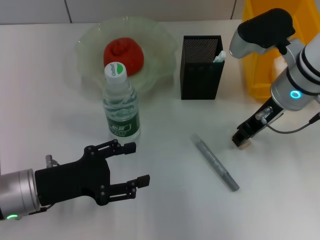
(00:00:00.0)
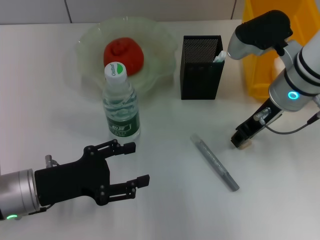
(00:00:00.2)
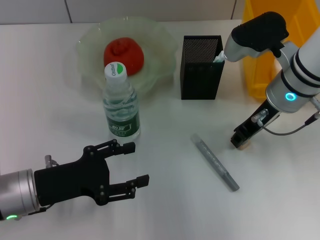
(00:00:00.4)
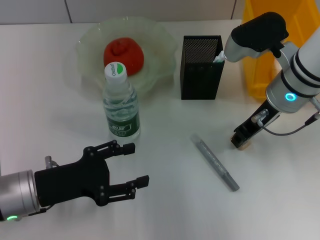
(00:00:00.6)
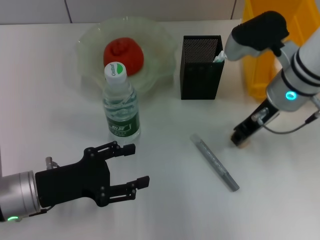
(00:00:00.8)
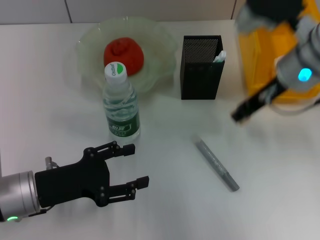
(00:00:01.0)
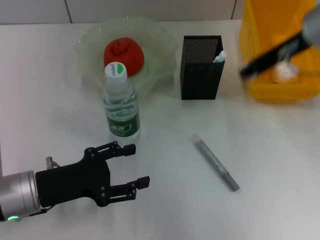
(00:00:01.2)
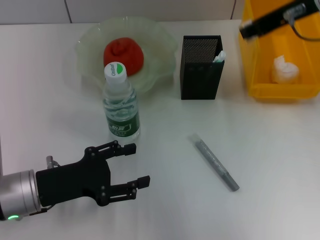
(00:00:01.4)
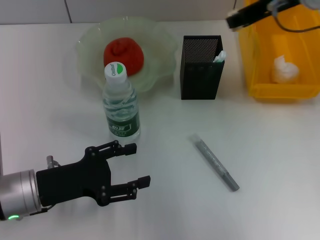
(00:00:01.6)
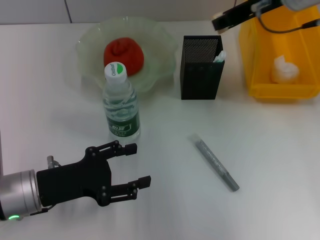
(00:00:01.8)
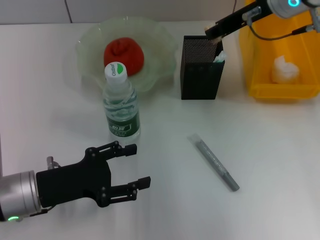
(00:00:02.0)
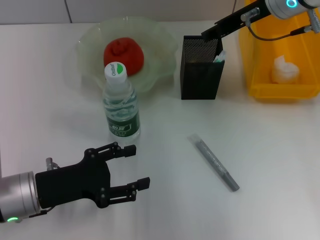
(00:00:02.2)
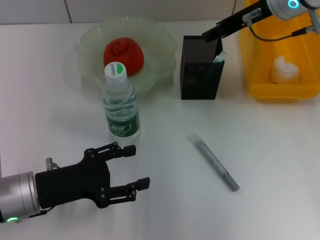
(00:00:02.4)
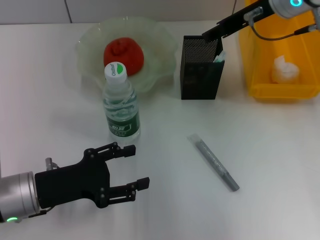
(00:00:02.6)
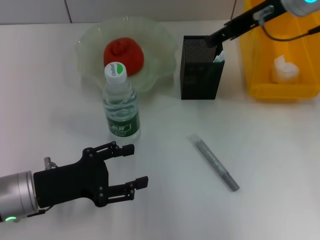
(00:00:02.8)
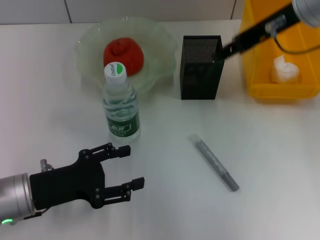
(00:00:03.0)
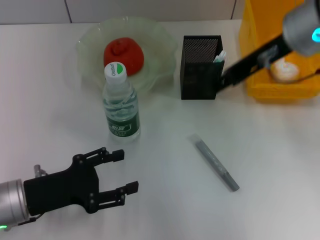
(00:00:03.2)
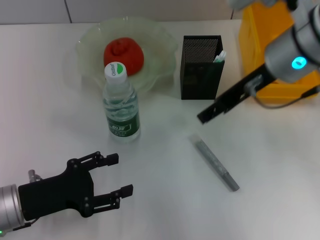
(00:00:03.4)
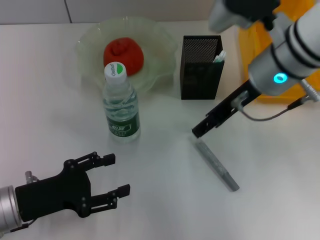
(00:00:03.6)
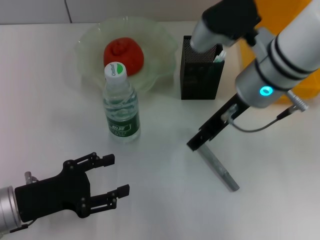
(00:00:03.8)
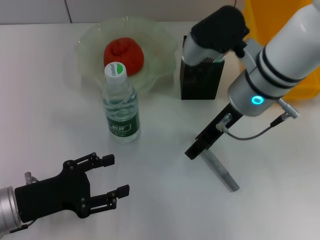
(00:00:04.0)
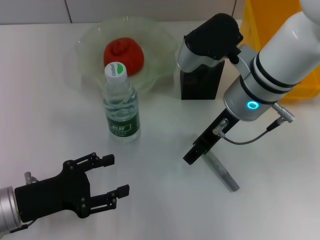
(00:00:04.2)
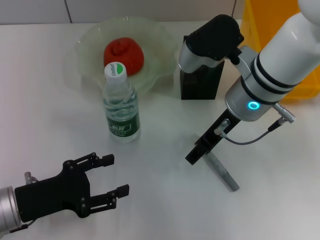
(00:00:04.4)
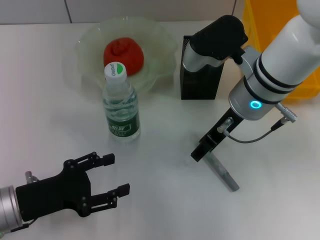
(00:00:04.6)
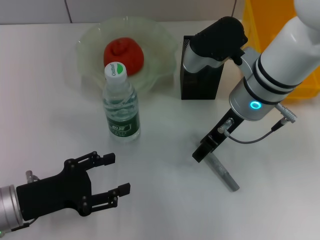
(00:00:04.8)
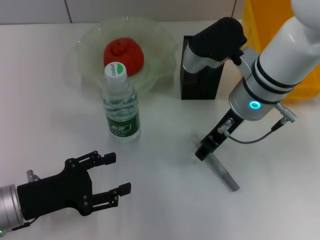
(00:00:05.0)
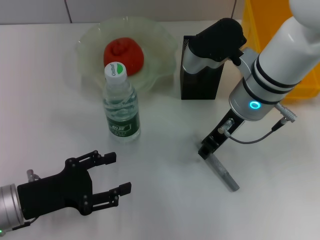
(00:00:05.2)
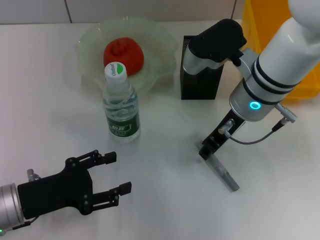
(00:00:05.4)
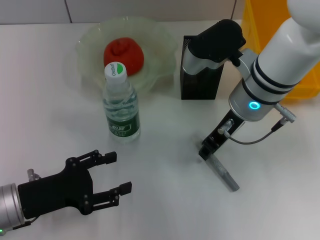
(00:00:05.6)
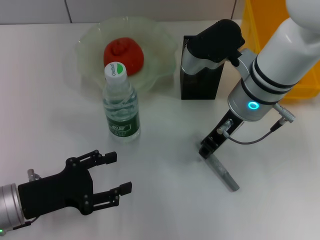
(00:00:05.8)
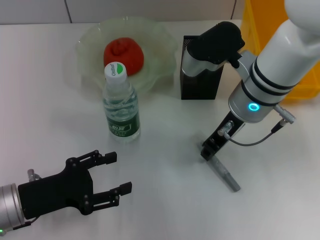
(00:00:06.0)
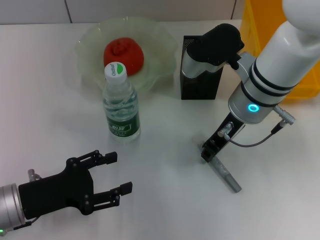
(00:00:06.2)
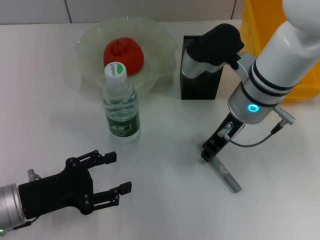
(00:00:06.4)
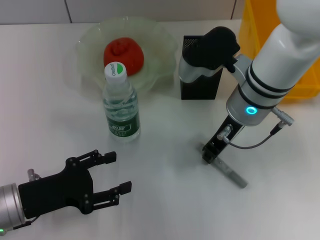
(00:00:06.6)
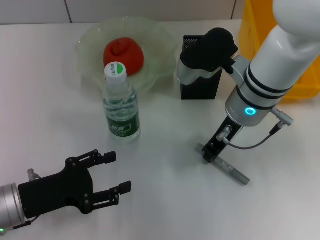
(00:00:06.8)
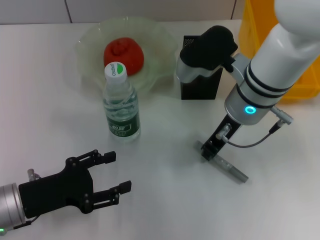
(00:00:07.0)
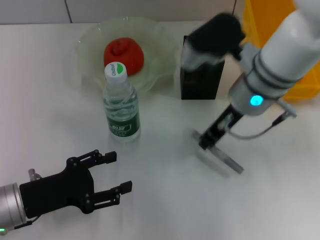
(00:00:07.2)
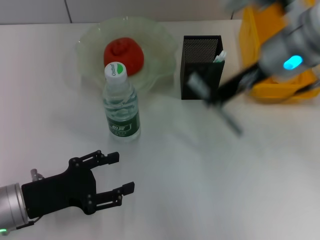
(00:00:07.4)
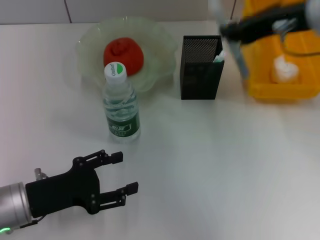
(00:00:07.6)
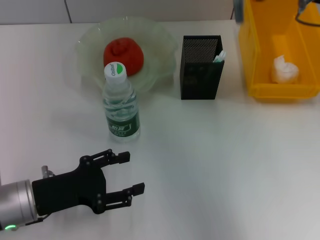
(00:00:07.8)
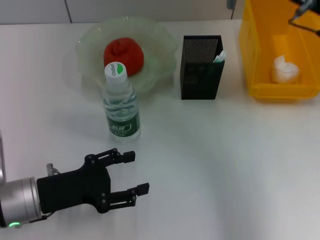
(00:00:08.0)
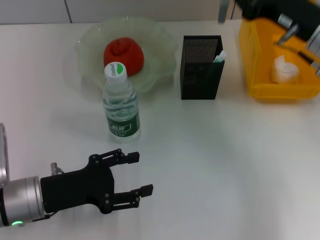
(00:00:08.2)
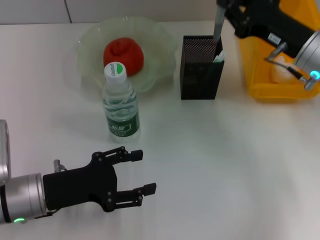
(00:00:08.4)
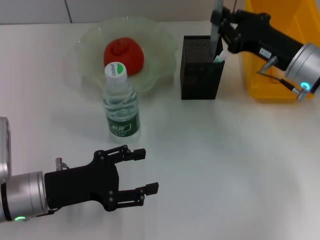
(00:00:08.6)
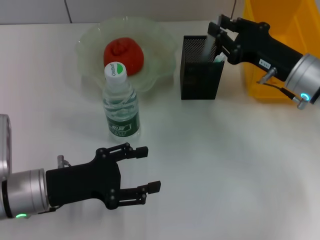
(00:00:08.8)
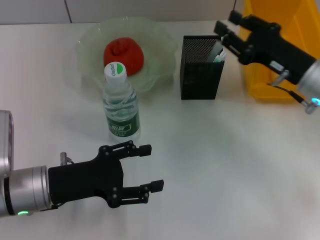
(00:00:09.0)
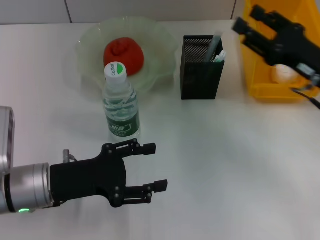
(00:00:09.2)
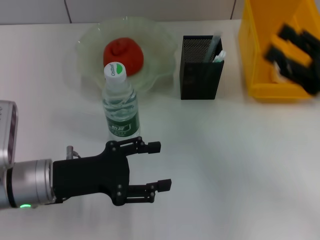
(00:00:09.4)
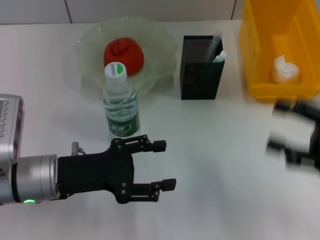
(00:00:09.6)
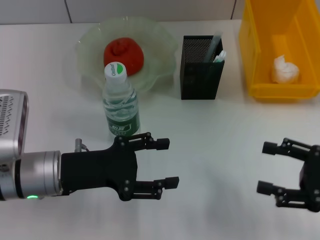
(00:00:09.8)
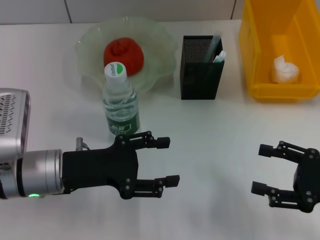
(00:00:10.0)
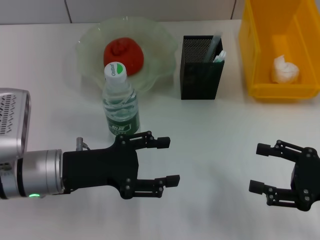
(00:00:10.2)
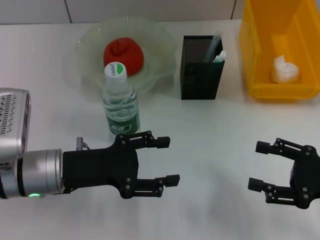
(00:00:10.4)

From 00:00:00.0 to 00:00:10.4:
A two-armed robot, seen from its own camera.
Step, from 00:00:00.8 to 00:00:02.2: Put the eraser into the pen holder with the right hand.
Step, from 00:00:02.4 to 00:00:06.8: Grab the gray glue with the right hand.
Step, from 00:00:07.0 to 00:00:08.8: Place the gray glue into the pen holder with the right hand.
From 00:00:00.0 to 00:00:01.4: The right gripper moves upward, roughly 15 cm.
From 00:00:01.4 to 00:00:03.0: The right gripper opens.
From 00:00:03.0 to 00:00:04.4: The right gripper moves downward and to the left, some 15 cm.
From 00:00:04.4 to 00:00:06.0: The right gripper closes.
From 00:00:06.0 to 00:00:07.4: The right gripper shifts about 10 cm upward.
From 00:00:07.4 to 00:00:09.0: The right gripper moves downward and to the right, some 15 cm.
From 00:00:09.0 to 00:00:10.4: The right gripper moves backward and to the right, approximately 15 cm, and opens up.

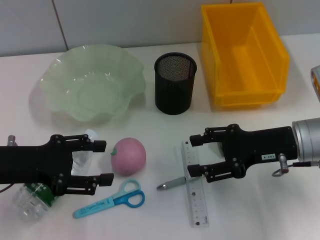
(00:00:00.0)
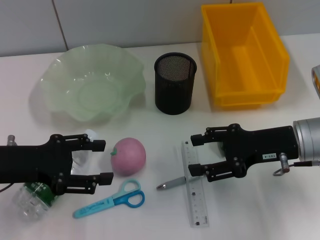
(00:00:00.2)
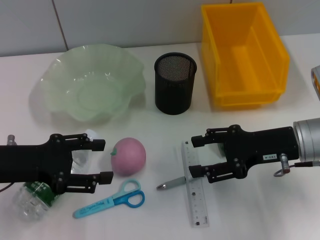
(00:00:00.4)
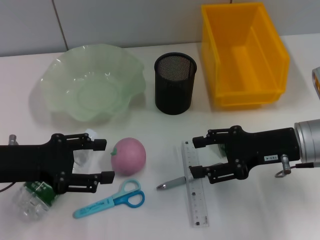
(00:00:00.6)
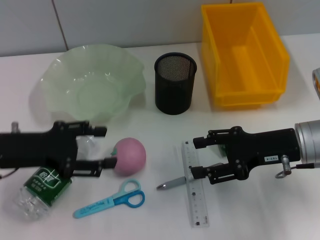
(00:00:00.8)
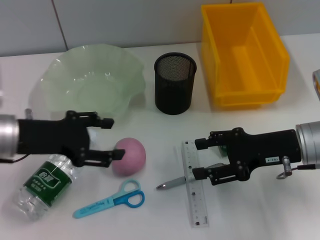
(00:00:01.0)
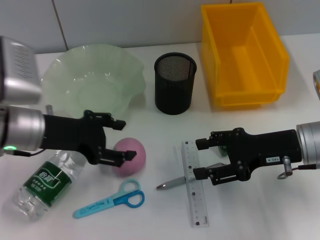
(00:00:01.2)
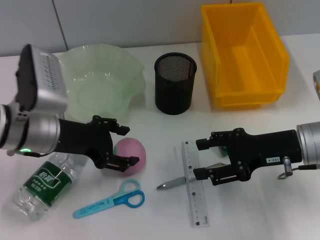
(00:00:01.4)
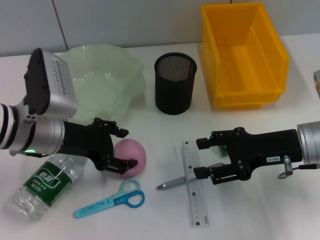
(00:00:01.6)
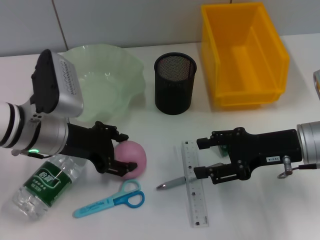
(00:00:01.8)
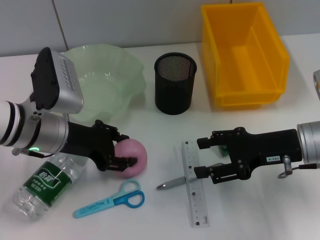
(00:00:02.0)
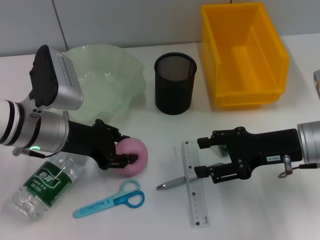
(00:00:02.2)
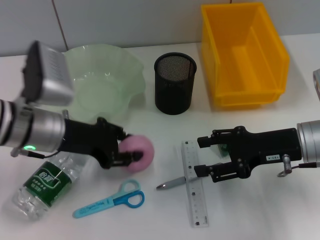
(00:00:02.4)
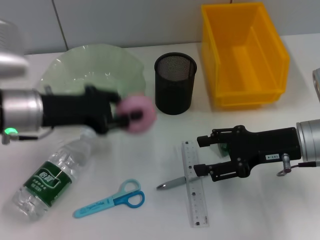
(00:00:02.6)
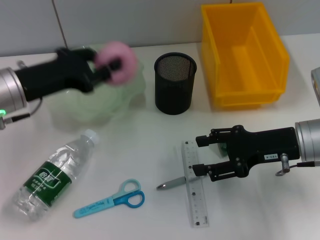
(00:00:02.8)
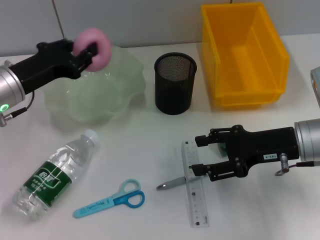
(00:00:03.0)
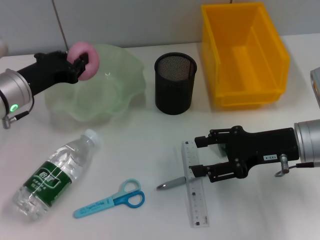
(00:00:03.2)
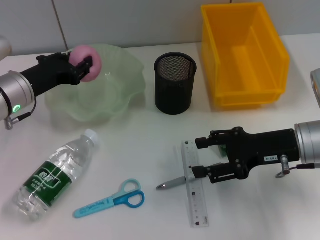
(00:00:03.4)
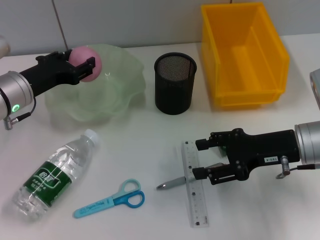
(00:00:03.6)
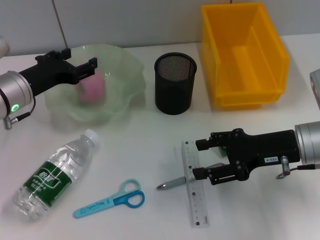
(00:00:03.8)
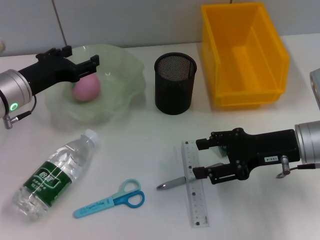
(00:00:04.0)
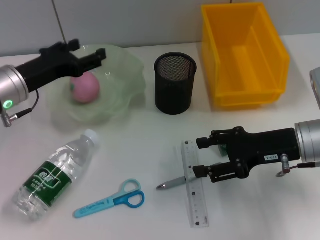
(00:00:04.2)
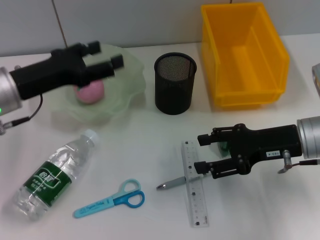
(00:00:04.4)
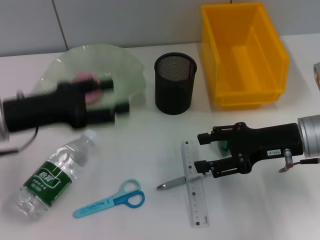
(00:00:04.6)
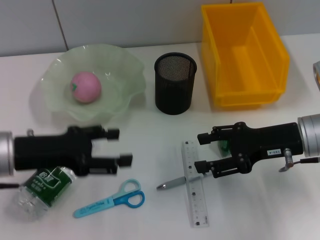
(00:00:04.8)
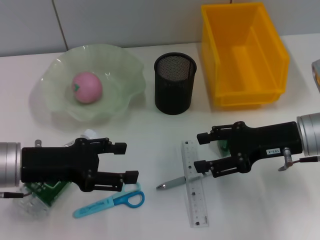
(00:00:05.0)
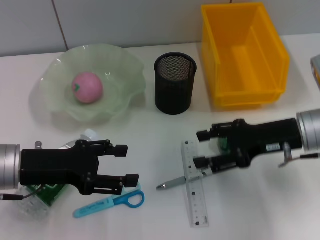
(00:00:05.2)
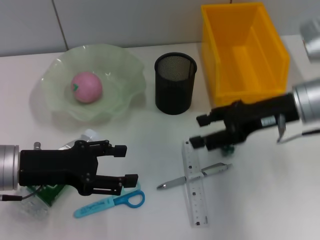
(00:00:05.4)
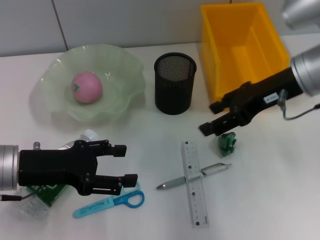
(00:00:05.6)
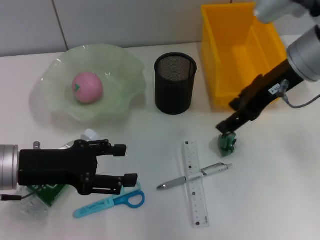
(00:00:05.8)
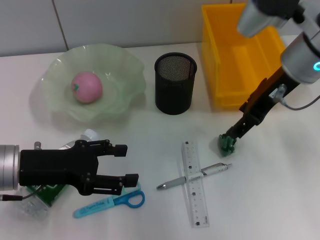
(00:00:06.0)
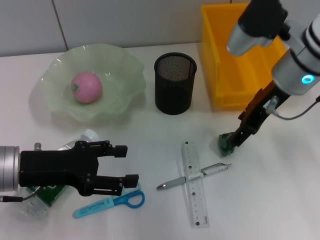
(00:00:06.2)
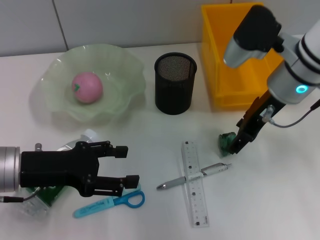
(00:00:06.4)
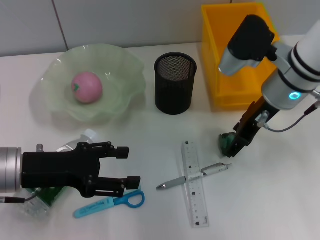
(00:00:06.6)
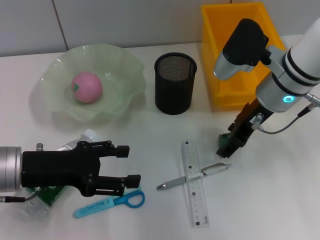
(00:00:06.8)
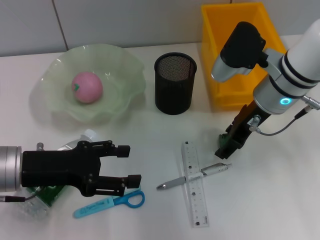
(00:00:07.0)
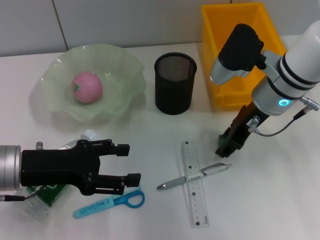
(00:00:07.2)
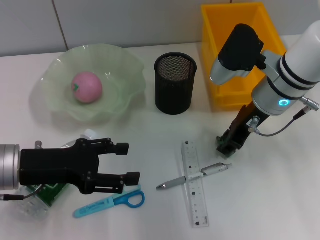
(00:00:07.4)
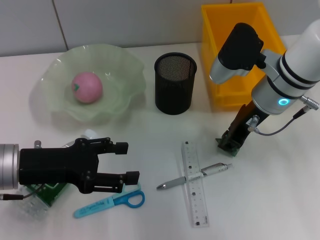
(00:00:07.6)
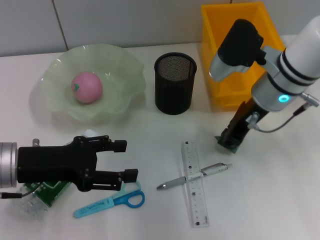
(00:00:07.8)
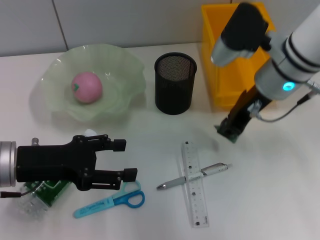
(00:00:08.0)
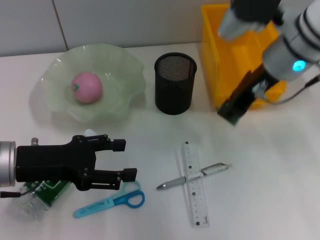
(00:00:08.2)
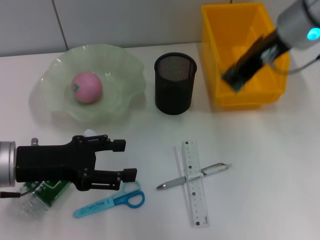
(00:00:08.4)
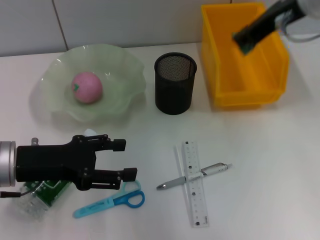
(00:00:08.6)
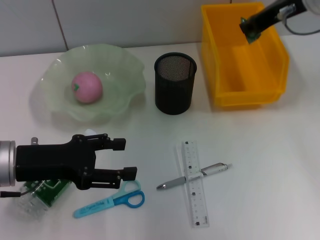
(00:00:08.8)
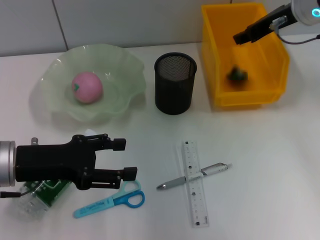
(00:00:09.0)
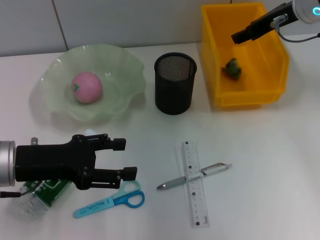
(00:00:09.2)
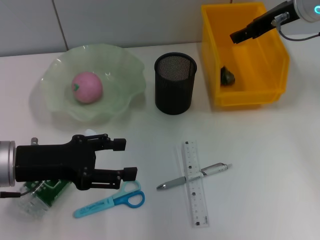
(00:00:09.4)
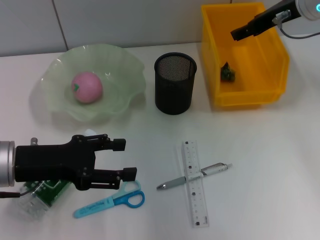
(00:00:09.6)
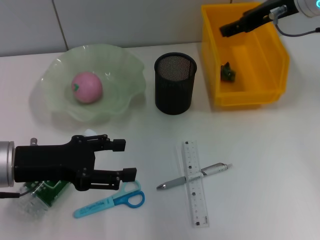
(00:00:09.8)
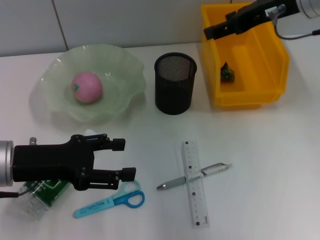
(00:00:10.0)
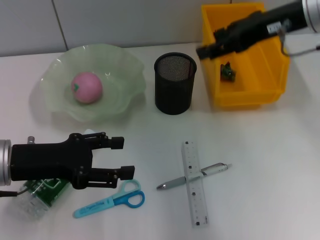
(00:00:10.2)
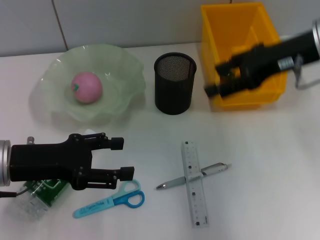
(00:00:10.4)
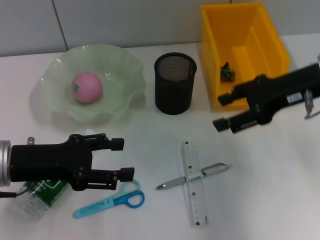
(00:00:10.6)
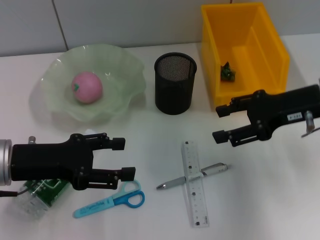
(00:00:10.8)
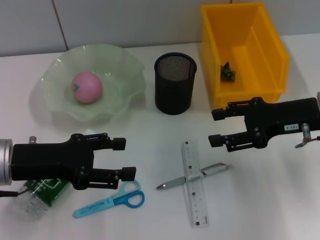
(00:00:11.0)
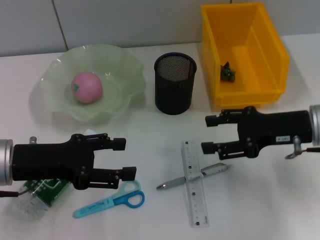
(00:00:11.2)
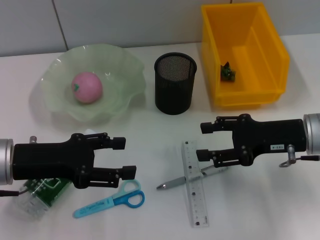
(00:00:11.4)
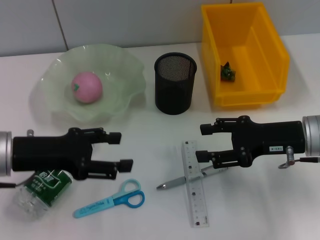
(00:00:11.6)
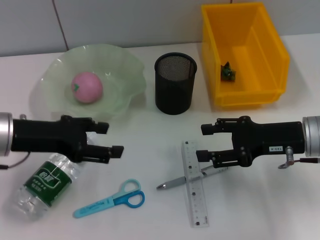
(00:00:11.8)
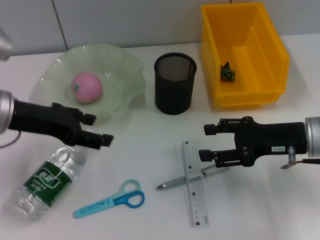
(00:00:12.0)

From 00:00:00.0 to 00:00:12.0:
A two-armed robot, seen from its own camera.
Step, from 00:00:00.0 to 00:00:02.0: Grab the peach with the left hand.
Step, from 00:00:02.4 to 00:00:03.6: Place the peach into the fruit bowl with the left hand.
Step, from 00:00:04.0 to 00:00:07.4: Grab the plastic with the right hand.
Step, from 00:00:07.6 to 00:00:09.2: Place the plastic into the trash can with the right hand.
From 00:00:00.0 to 00:00:01.6: The left gripper is displaced to the right and forward by approximately 10 cm.
From 00:00:01.6 to 00:00:03.0: The left gripper changes place by approximately 5 cm, and closes its fingers.
From 00:00:03.0 to 00:00:04.4: The left gripper opens its fingers.
From 00:00:04.4 to 00:00:06.0: The right gripper moves upward, forward and to the left, approximately 15 cm; the left gripper moves backward, about 5 cm.
From 00:00:06.0 to 00:00:07.6: The right gripper shifts roughly 5 cm downward, and closes up.
From 00:00:07.6 to 00:00:09.0: The right gripper goes some 10 cm upward, to the right and forward.
From 00:00:09.0 to 00:00:10.4: The right gripper goes about 10 cm backward, and opens up.
From 00:00:10.4 to 00:00:12.0: The right gripper heads downward and backward, covering some 15 cm; the left gripper goes approximately 10 cm upward and forward.
